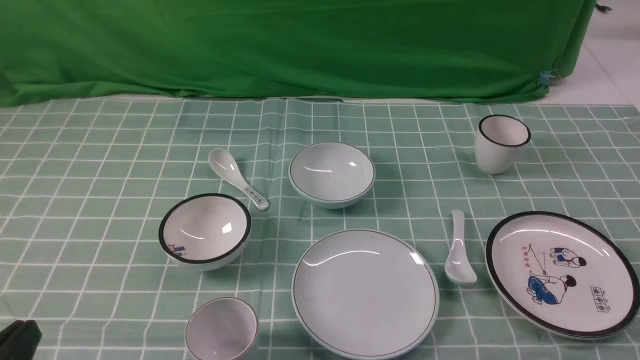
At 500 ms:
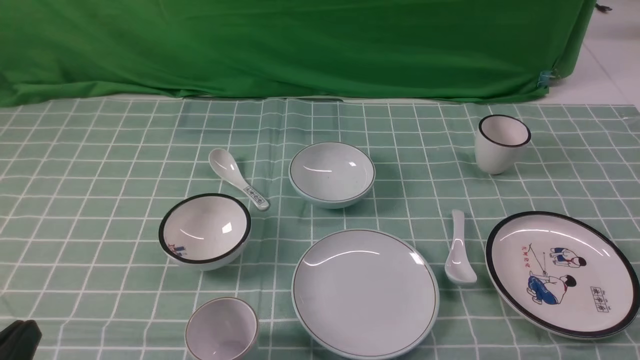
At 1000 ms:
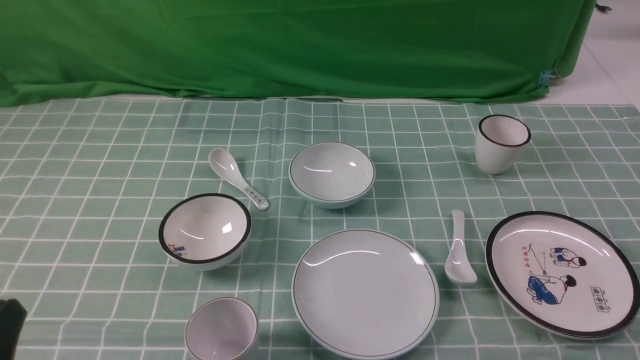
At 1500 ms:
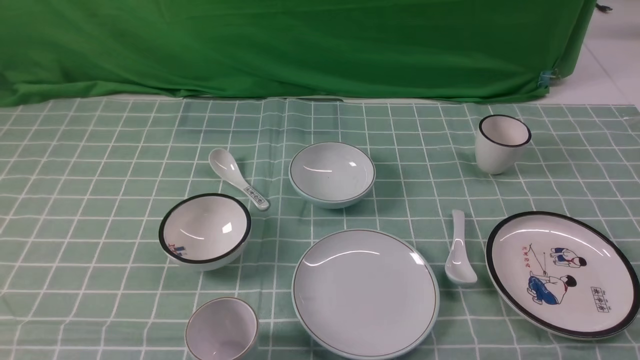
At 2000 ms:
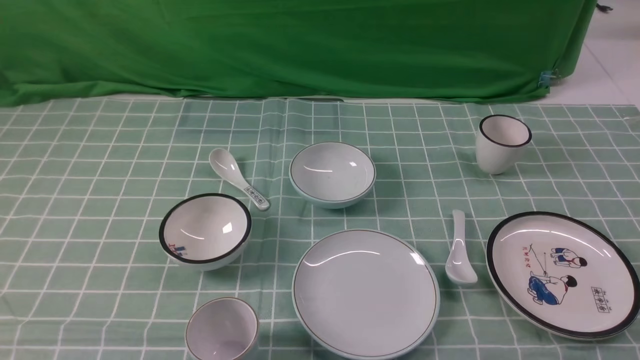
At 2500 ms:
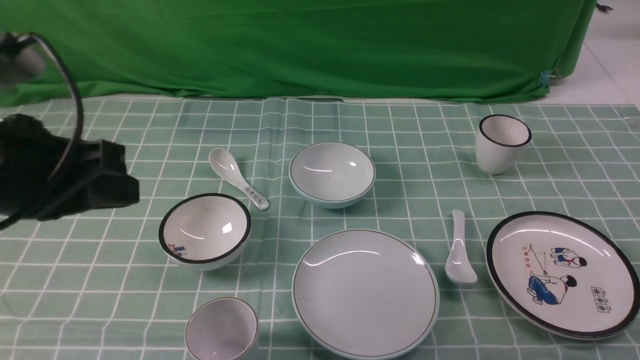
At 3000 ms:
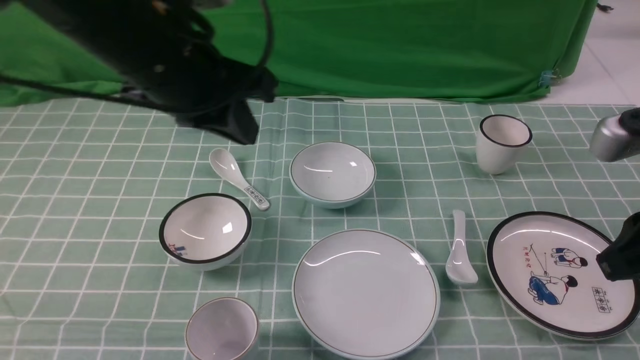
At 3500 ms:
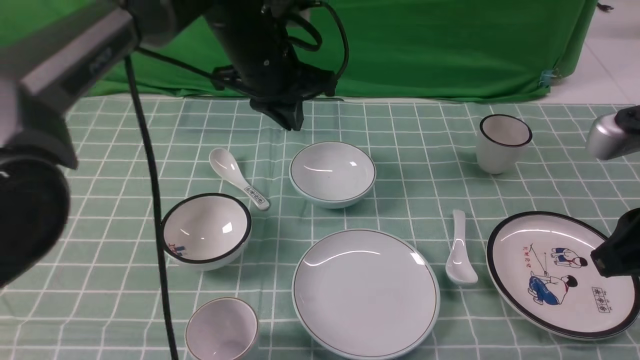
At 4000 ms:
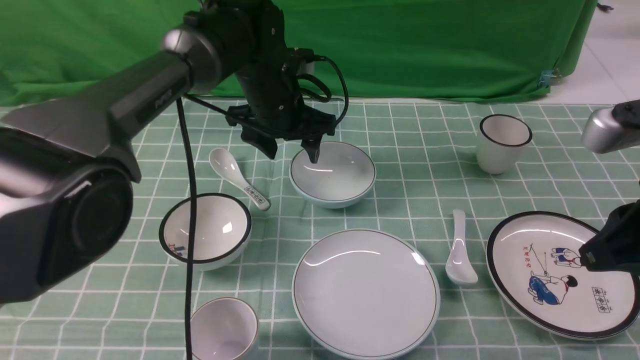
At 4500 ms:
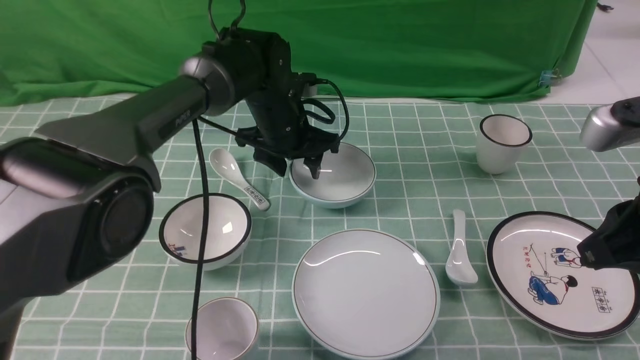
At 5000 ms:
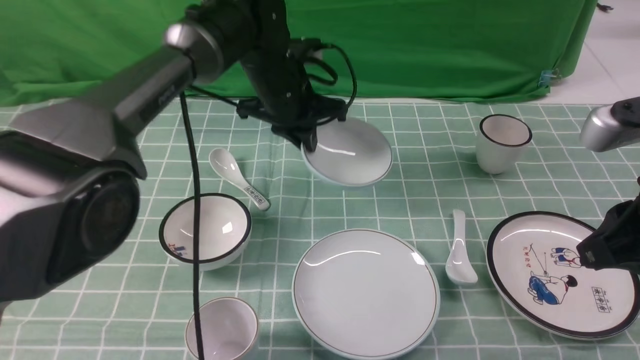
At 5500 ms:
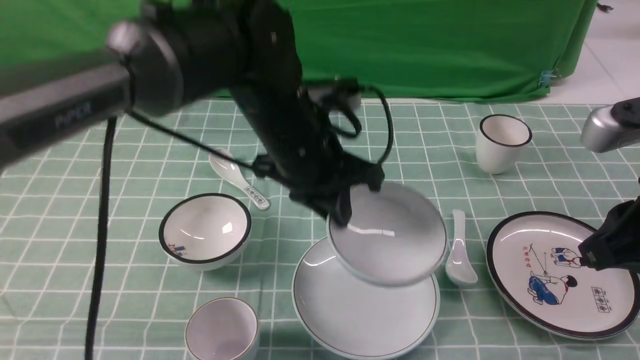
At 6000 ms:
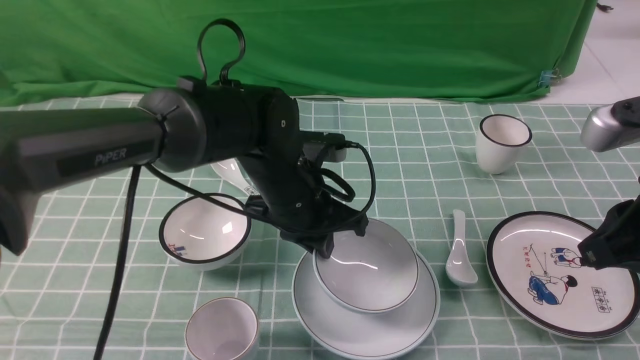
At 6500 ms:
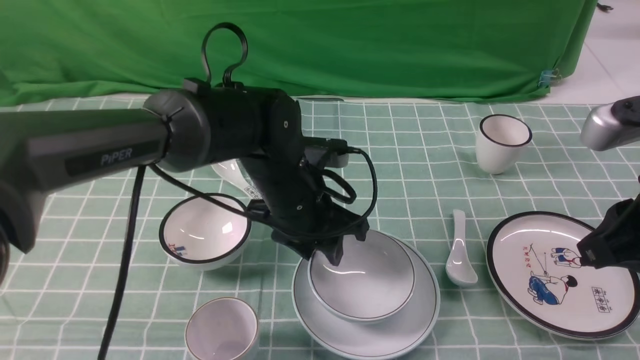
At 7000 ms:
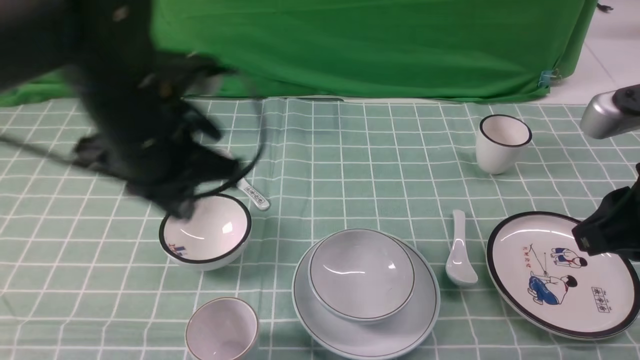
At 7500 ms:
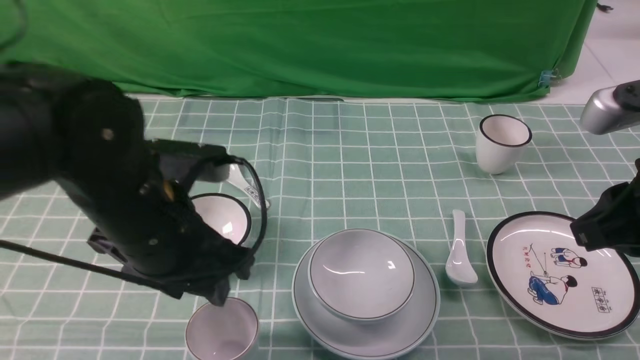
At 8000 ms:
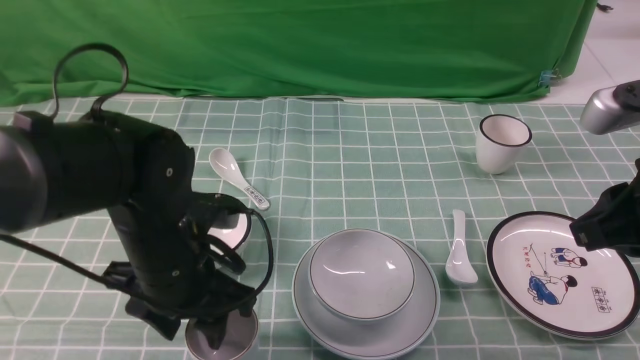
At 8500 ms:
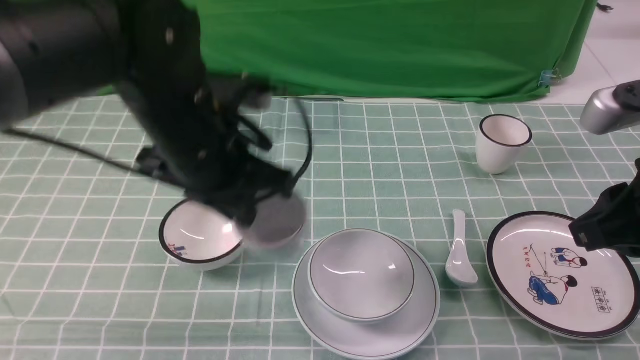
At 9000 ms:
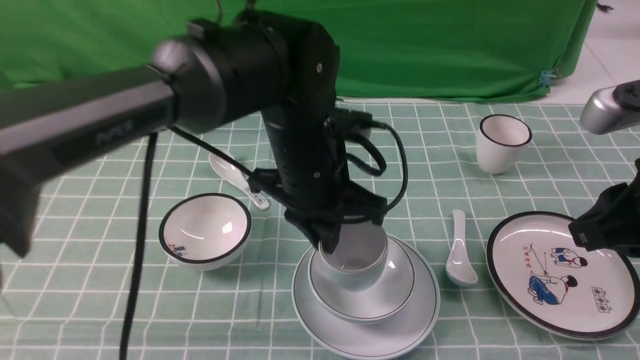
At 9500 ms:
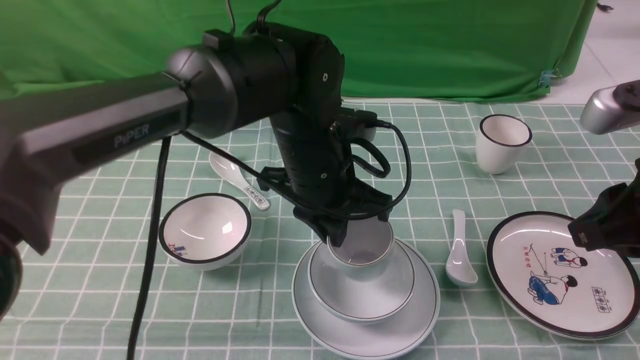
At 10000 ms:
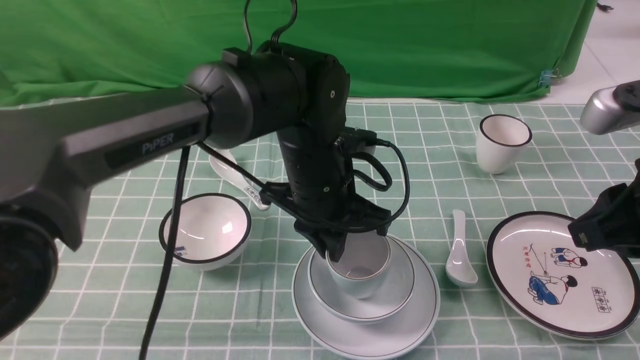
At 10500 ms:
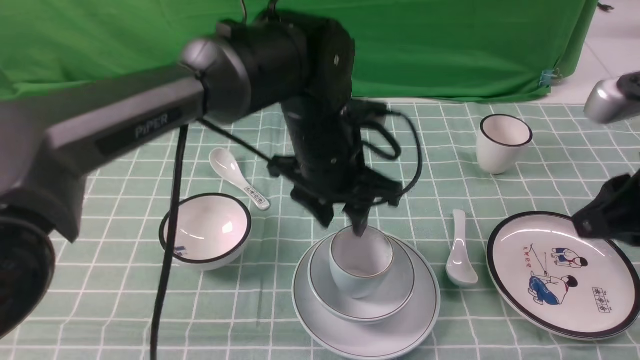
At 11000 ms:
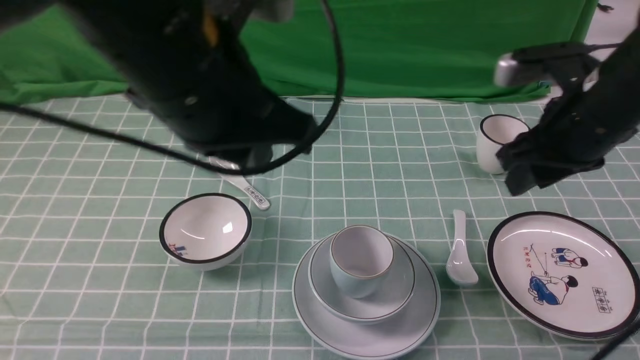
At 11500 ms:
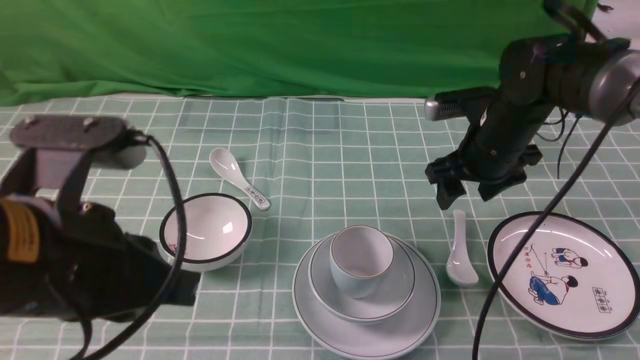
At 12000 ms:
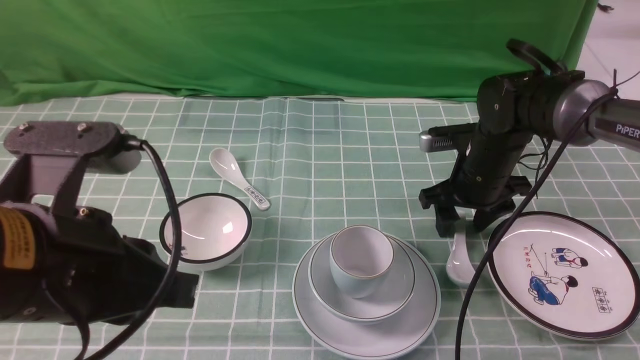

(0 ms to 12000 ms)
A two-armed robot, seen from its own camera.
Task of the whole recording: place the bowls on the plates on the blue tablecloth, put the cups on the bowls, and place the spoons in the cups.
Step, 0 ms - 4500 ms: Grasp the bowl with the left gripper.
Step, 5000 ms - 6500 ms: Place the bowl on the plate with the left gripper.
Step, 7000 ms - 8000 ms: Grasp the cup with the left gripper.
Step, 8500 ms - 10000 ms: Place the cup on the bowl with the left gripper.
2000 ms - 4000 ms: The left gripper goes approximately 50 cm forward and to the right, and opens its fingers, while the right gripper moves forward, upward and to the left, roughly 20 cm, and closes its fingers.
4000 ms - 6000 ms: The left gripper heads backward, covering roughly 15 cm, and closes up.
6000 ms - 8000 ms: The left gripper heads to the left and backward, covering about 15 cm, and opens up.
8000 ms - 10000 ms: The left gripper shifts about 15 cm to the right and forward, and closes.
10000 ms - 12000 ms: The right gripper goes roughly 25 cm forward and downward, and opens; the left gripper moves backward, to the left and upward, roughly 25 cm, and opens, then closes again.

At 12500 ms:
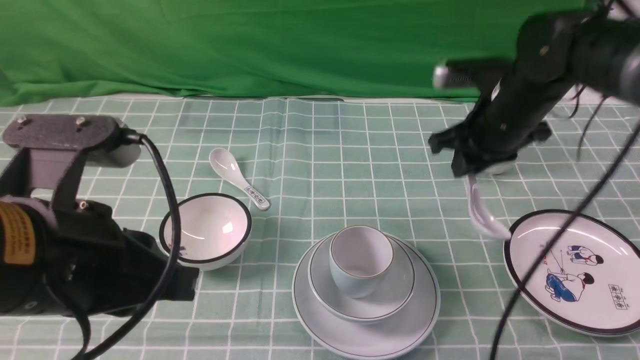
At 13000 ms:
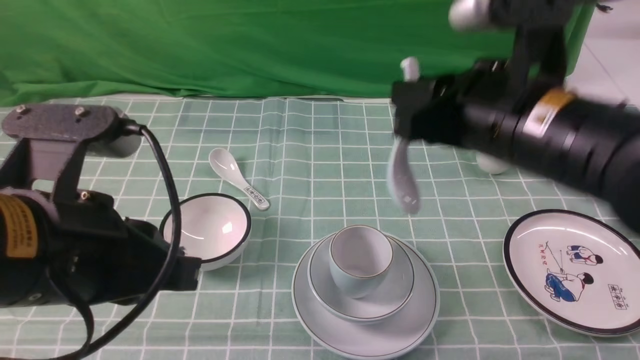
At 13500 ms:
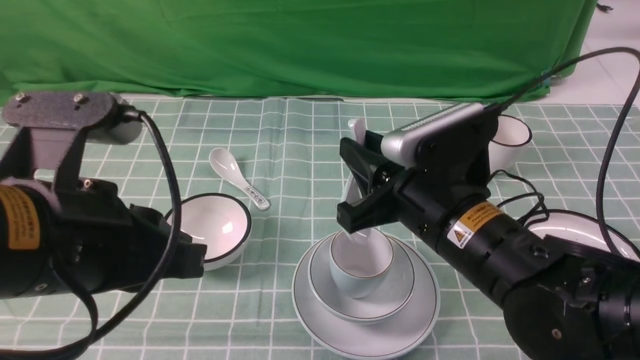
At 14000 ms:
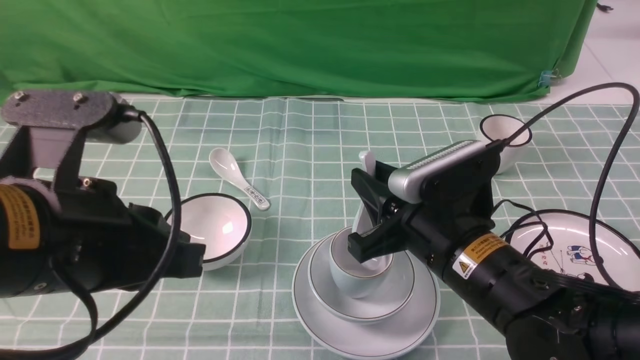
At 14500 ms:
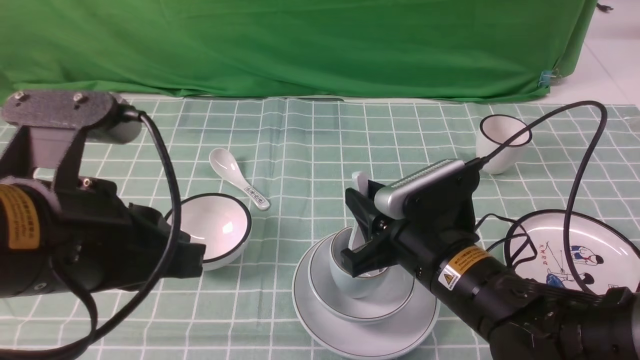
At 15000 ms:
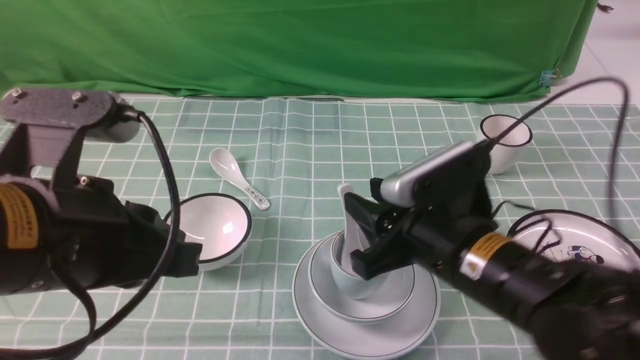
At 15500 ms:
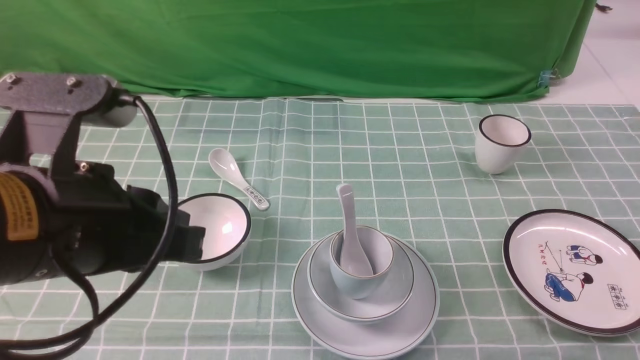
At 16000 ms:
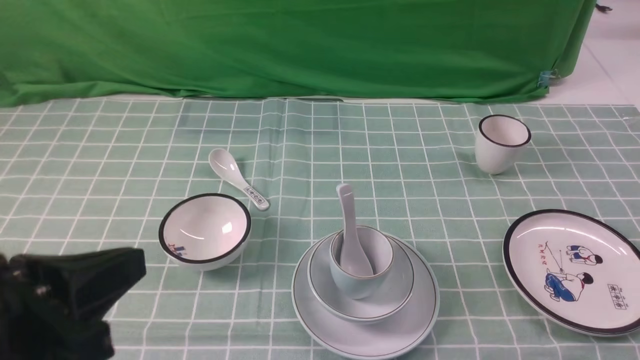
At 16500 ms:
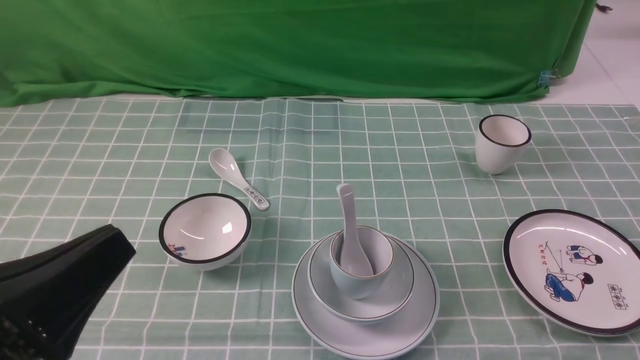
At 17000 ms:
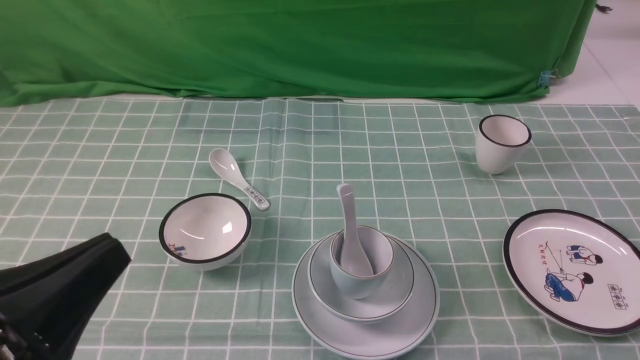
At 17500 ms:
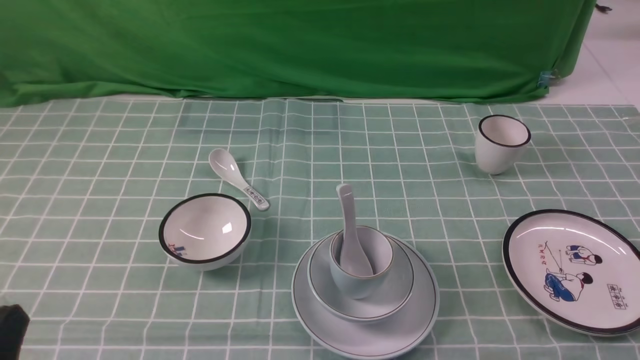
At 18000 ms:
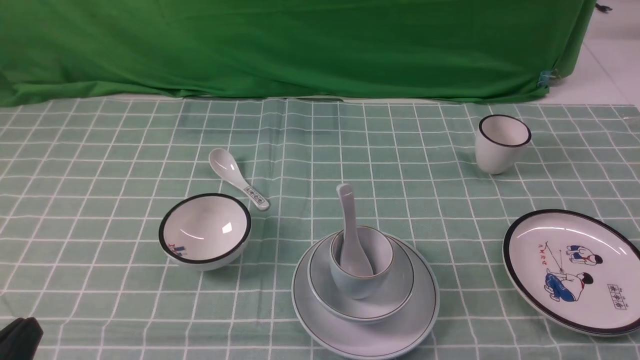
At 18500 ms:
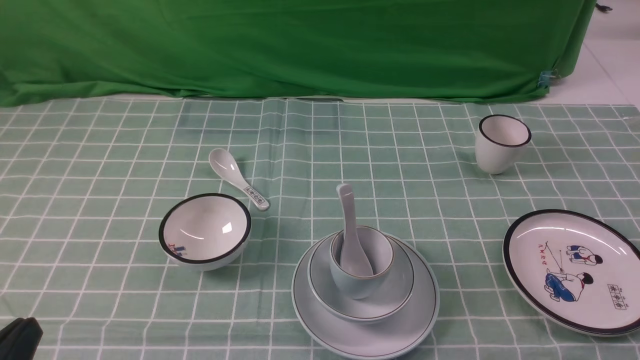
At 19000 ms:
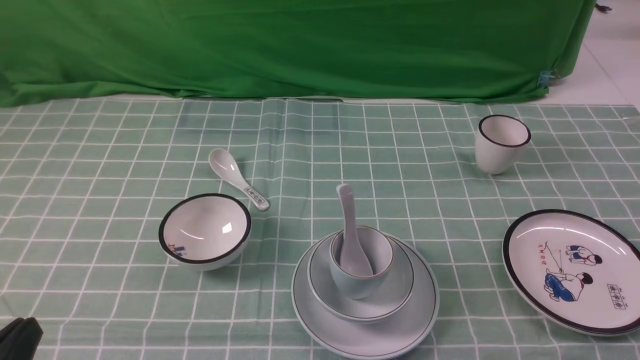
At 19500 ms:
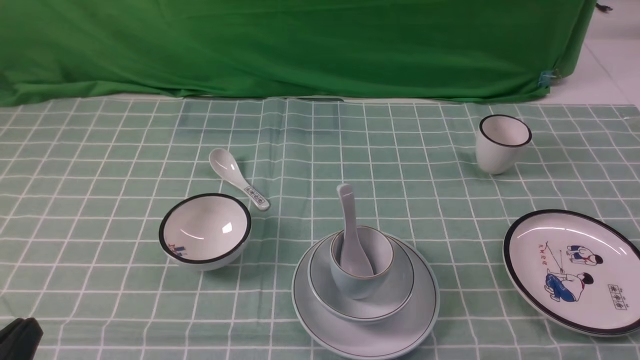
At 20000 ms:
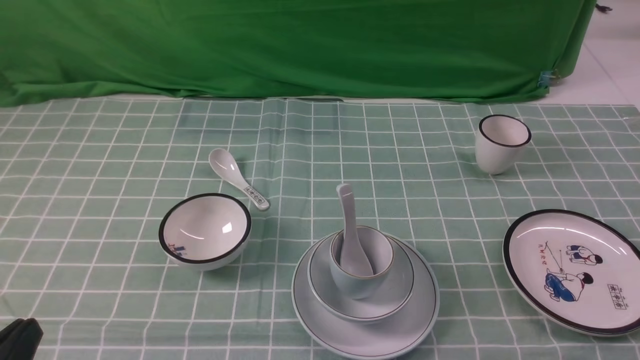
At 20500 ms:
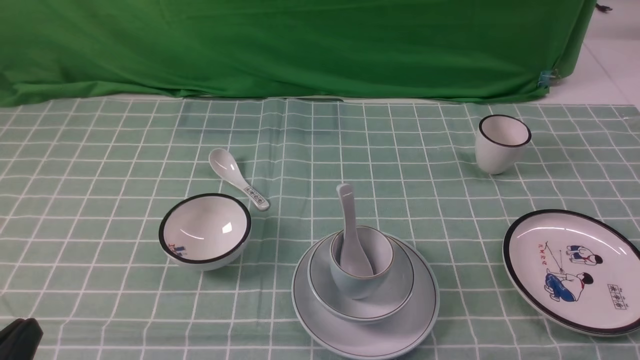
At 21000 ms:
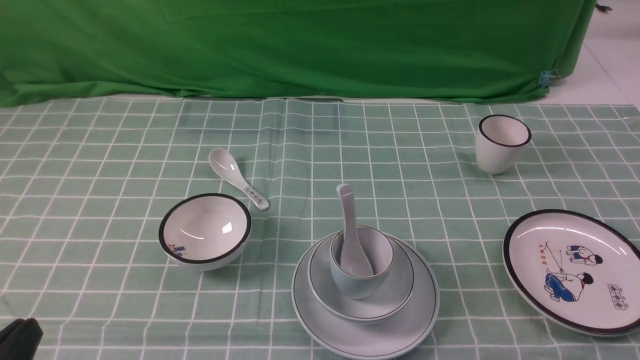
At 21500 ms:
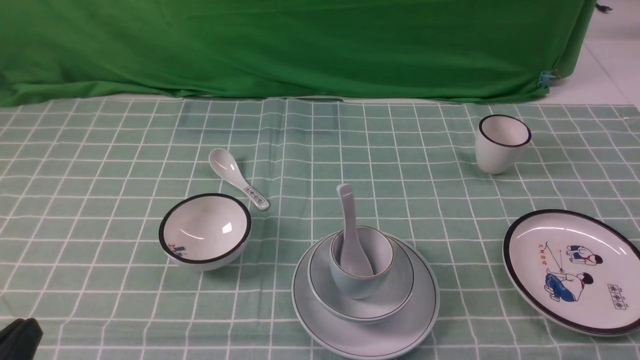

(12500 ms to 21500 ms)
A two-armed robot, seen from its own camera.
Task of the whole recording: place the bowls on the plates on the blue tablecloth, put the cups on the bowls, and place the spoons in the cups.
Step, 12500 ms - 14500 ms: Place the spoon on the cup with the right gripper.
12500 ms - 14500 ms: The right gripper goes roughly 20 cm backward.
14500 ms - 17000 ms: The left gripper shifts approximately 10 cm backward and downward, while the right gripper heads backward, to the right and upward, covering roughly 30 cm.
17000 ms - 19500 ms: The left gripper goes about 10 cm downward.
